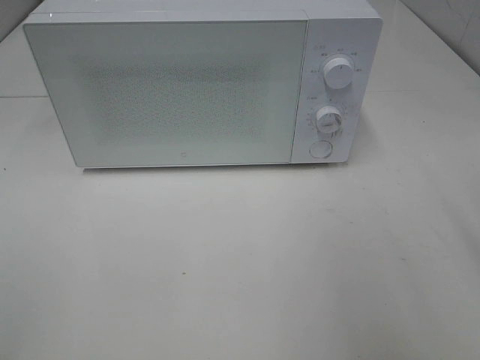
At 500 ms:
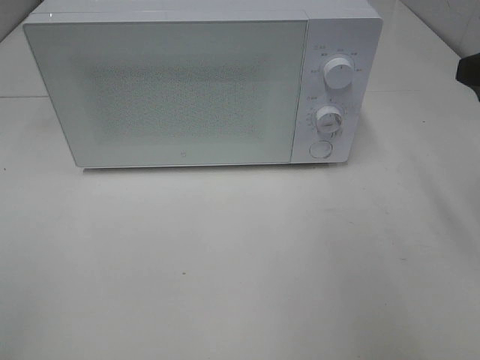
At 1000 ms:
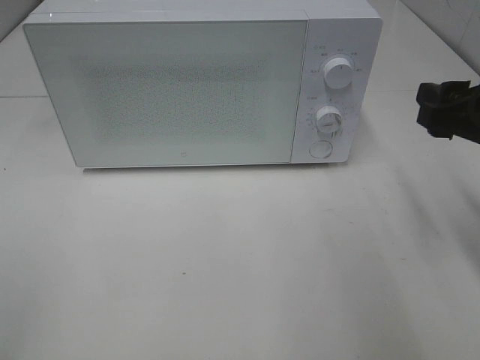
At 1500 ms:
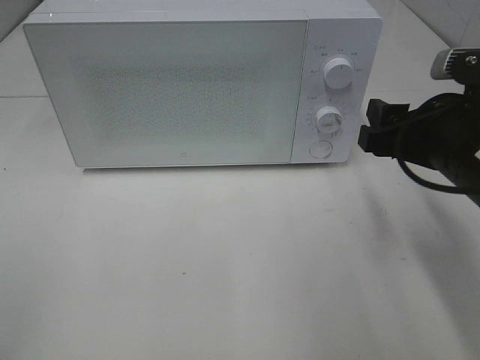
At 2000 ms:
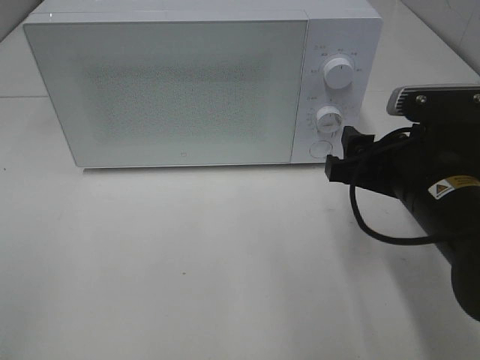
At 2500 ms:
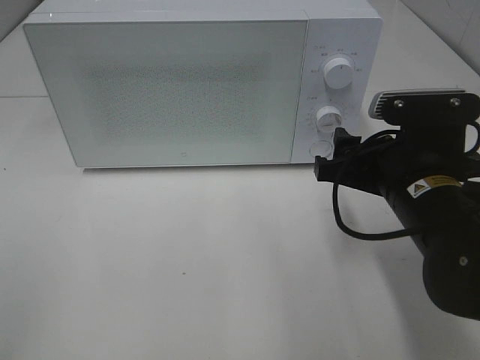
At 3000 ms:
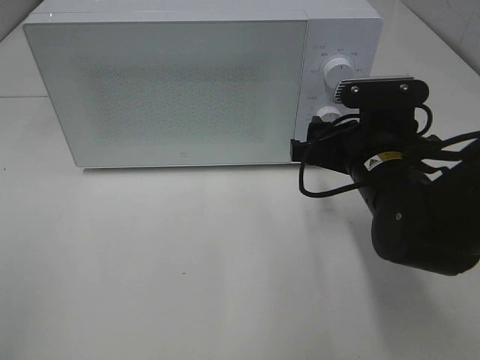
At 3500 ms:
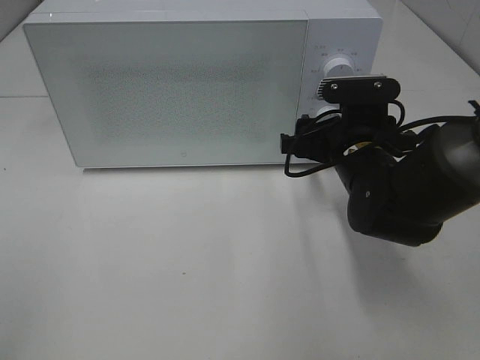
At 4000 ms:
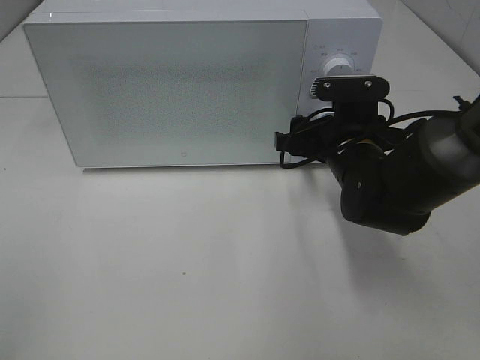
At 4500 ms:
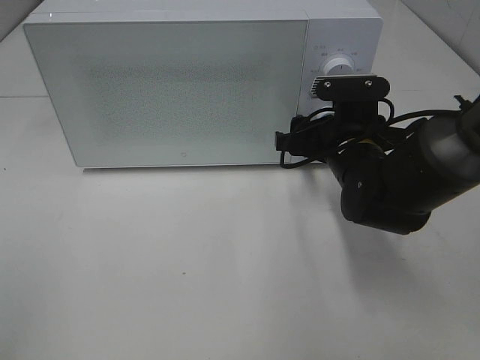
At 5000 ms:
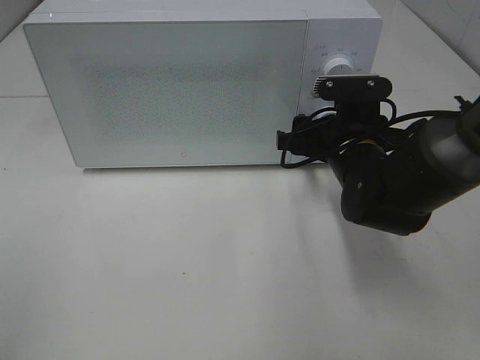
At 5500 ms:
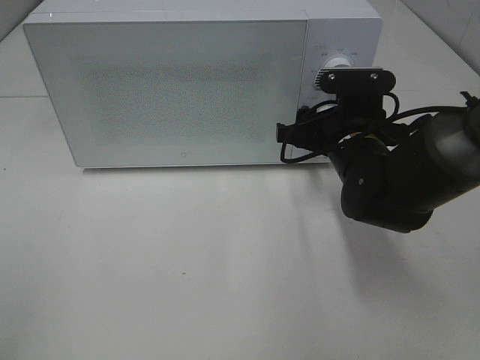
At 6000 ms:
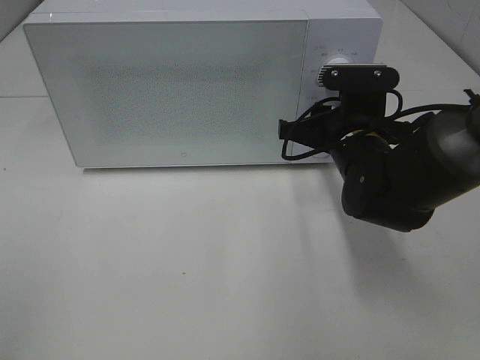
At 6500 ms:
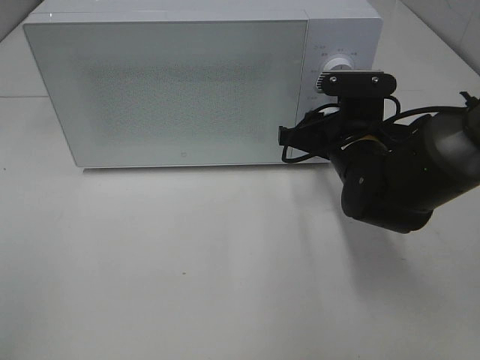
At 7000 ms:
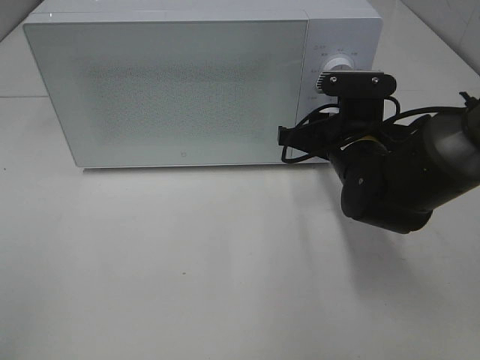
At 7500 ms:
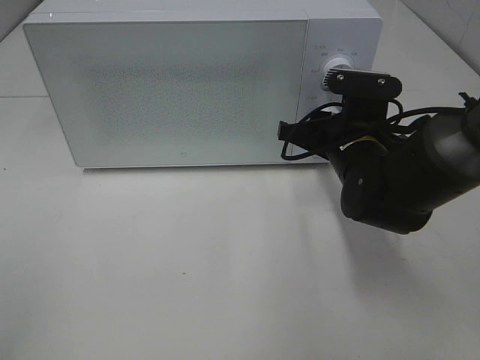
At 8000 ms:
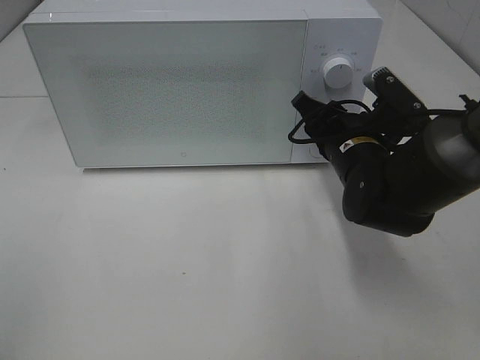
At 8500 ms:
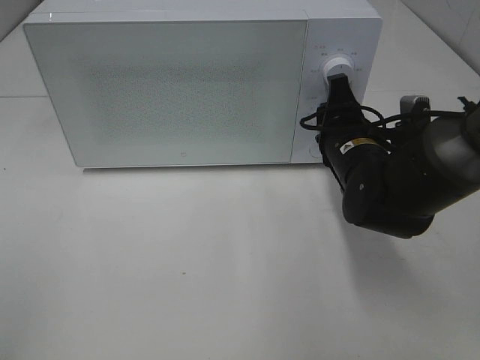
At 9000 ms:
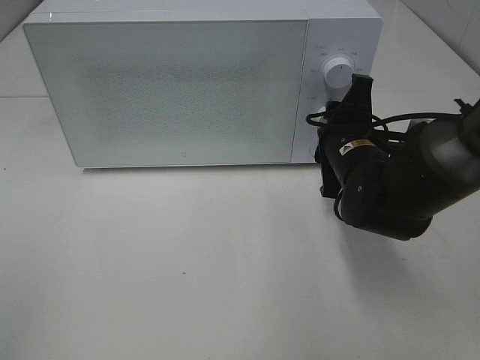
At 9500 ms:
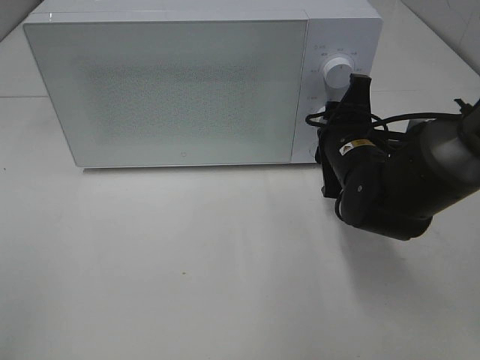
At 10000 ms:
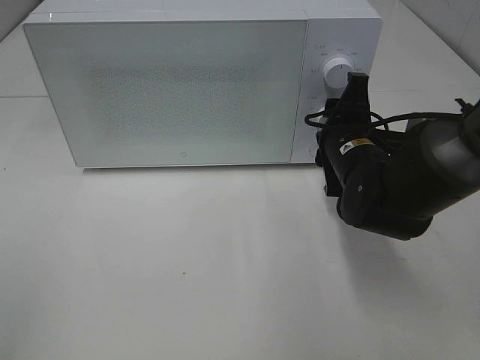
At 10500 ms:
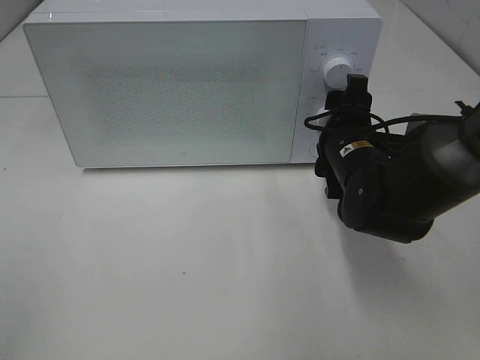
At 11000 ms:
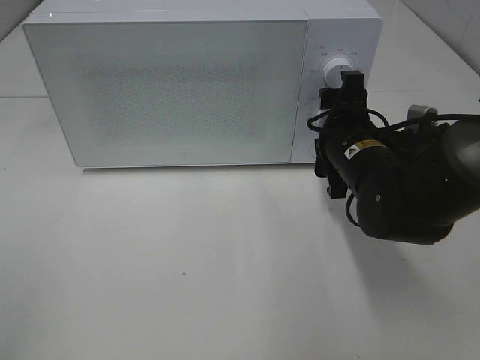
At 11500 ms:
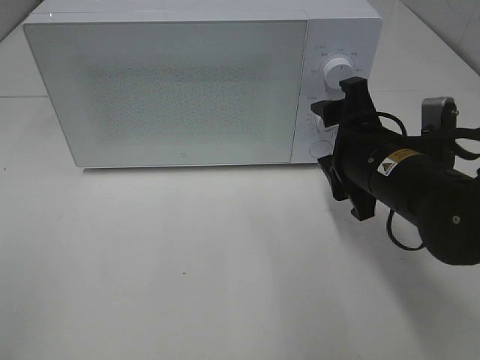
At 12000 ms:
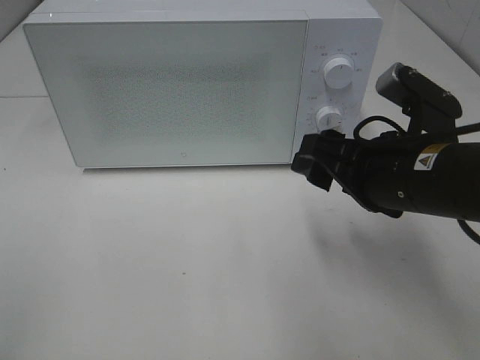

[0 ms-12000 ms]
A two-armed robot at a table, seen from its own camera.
Task of the whole recording: Heat Sandwich.
Step, 0 ms to 11000 ms: Right hand: twist timer button.
0 ms to 2000 ms: The right gripper heads downward and to the left, covering about 15 cm.
2000 ms to 4000 ms: The right gripper goes some 15 cm forward and downward.
4000 ms to 6000 ms: The right gripper closes.
10000 ms to 12000 ms: The right gripper moves backward and upward, some 10 cm.

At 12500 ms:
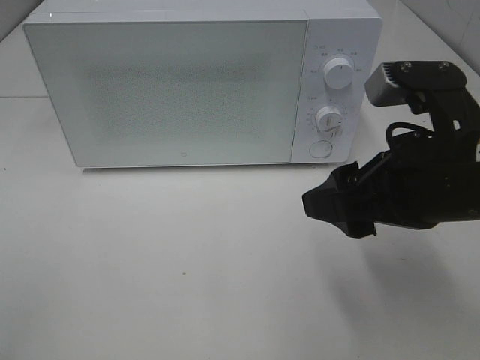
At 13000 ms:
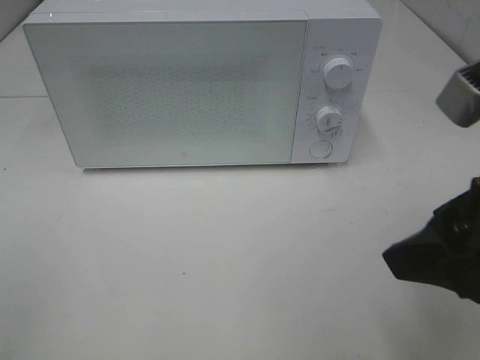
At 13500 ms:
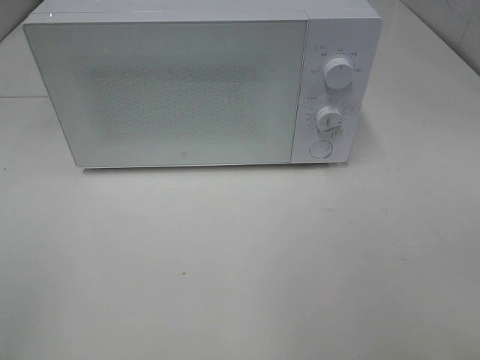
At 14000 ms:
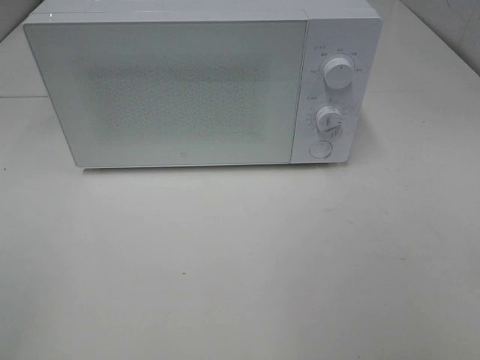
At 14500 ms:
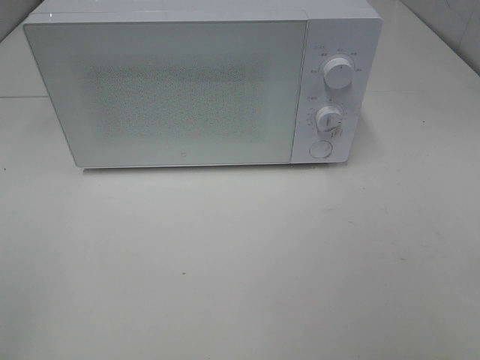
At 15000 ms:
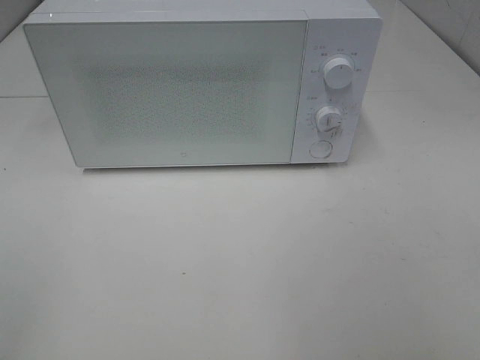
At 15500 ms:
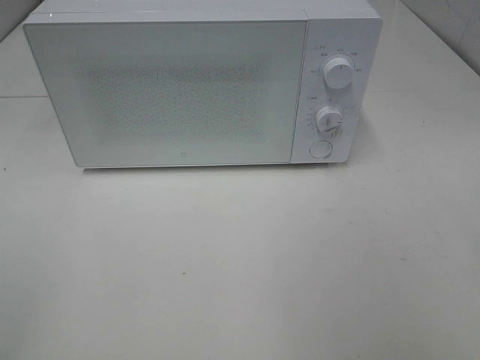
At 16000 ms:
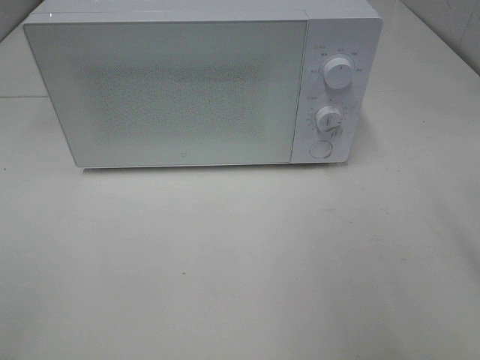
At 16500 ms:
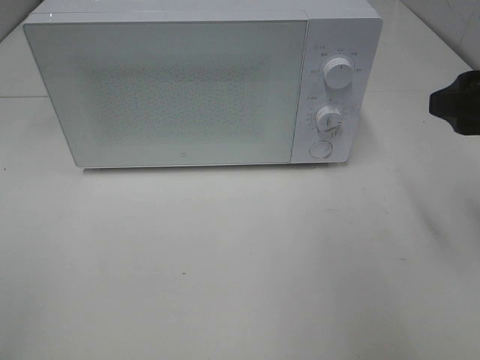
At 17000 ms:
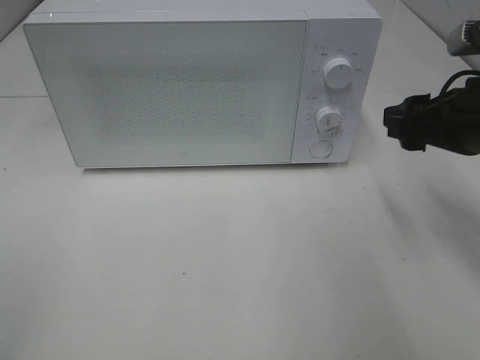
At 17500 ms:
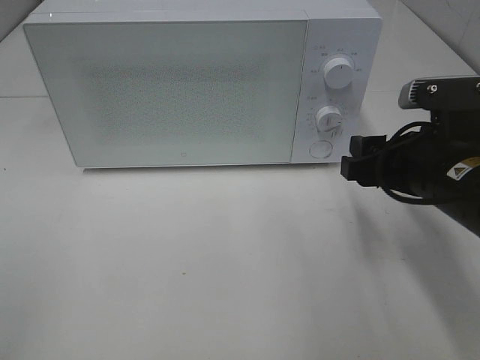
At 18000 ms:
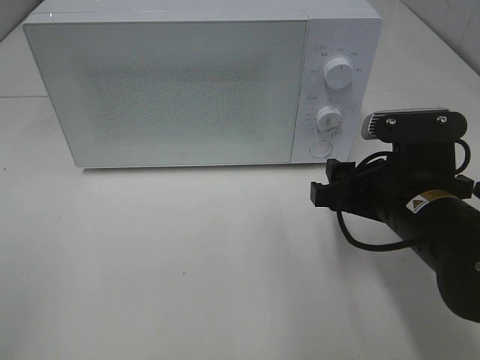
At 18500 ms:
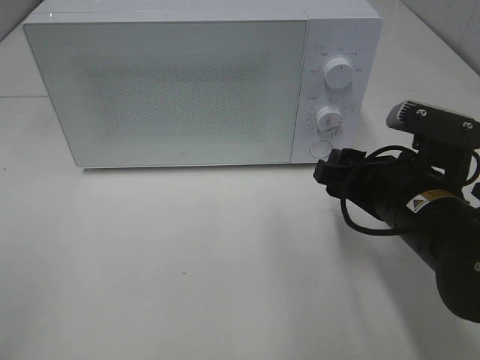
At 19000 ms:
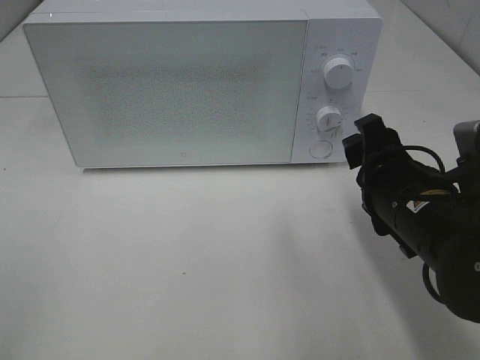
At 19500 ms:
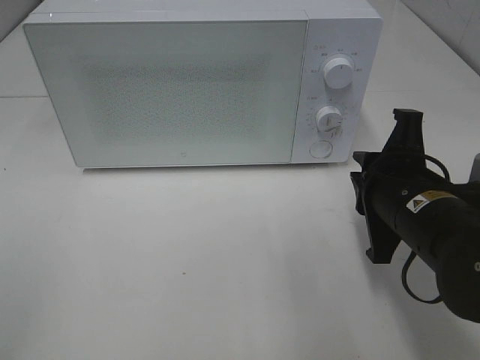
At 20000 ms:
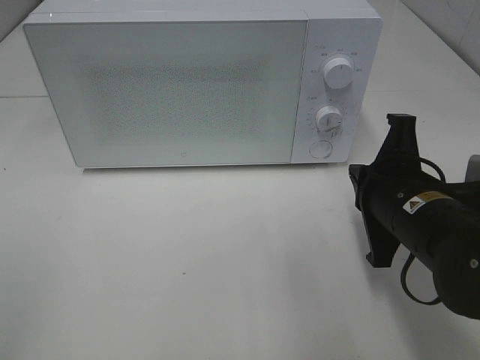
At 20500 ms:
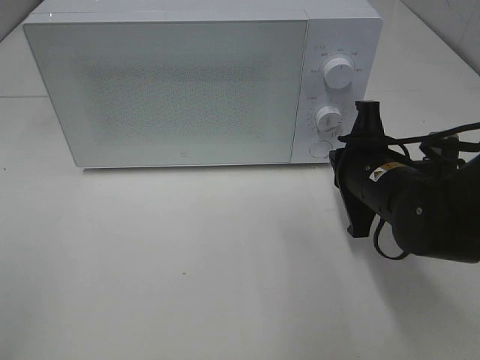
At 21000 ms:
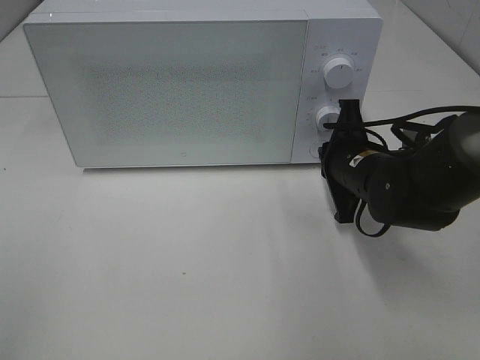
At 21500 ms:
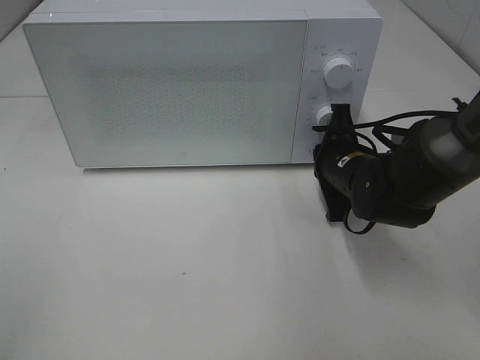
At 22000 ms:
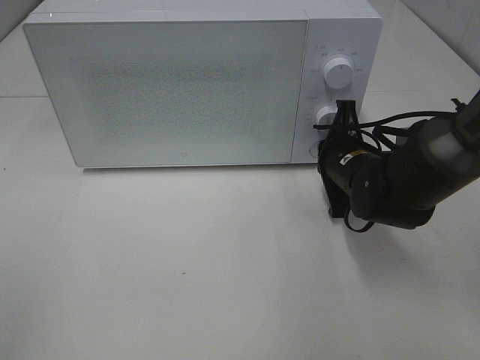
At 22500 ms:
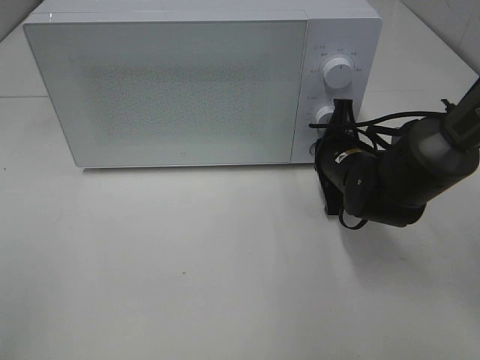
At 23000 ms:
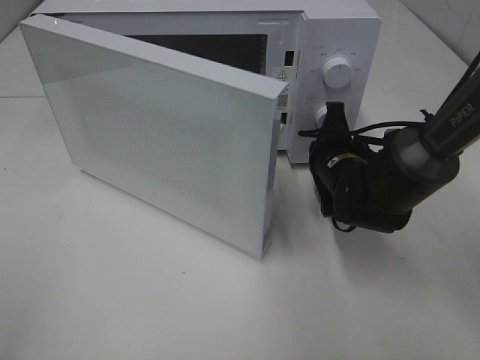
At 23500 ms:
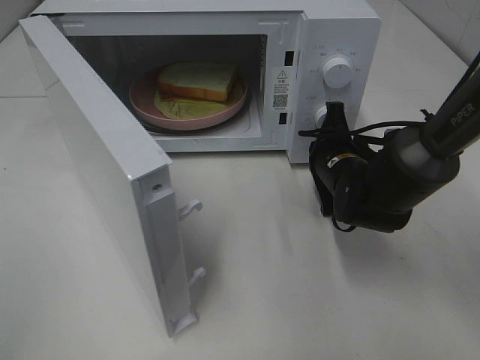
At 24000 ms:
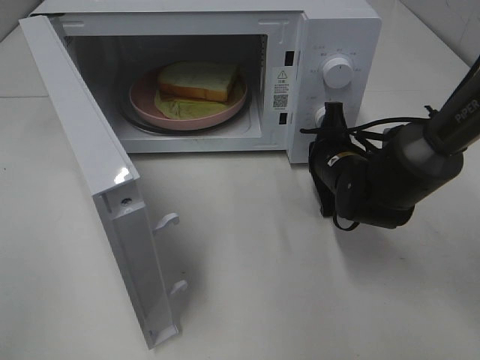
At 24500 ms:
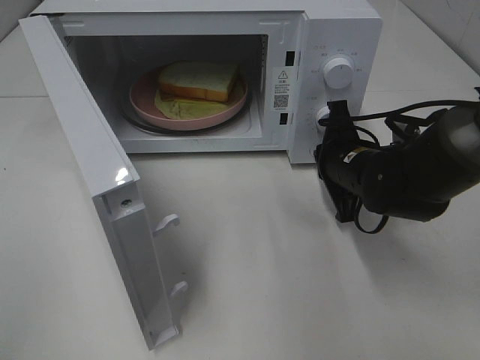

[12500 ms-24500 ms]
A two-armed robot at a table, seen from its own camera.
Task of the whole recording: Heat Sandwich.
Step, 12500 ms to 24000 ms: Right hand: press the switch.
12500 ms to 14500 ms: The right gripper is displaced backward and to the right by approximately 20 cm.
14500 ms to 16500 ms: The right gripper shifts about 20 cm forward.
16500 ms to 18500 ms: The right gripper moves downward and to the left, roughly 15 cm.
18500 ms to 20500 ms: The right gripper goes approximately 5 cm forward, and closes its fingers.
20500 ms to 22500 ms: The right gripper goes some 5 cm forward.

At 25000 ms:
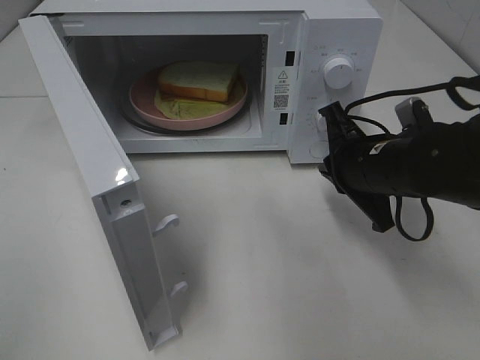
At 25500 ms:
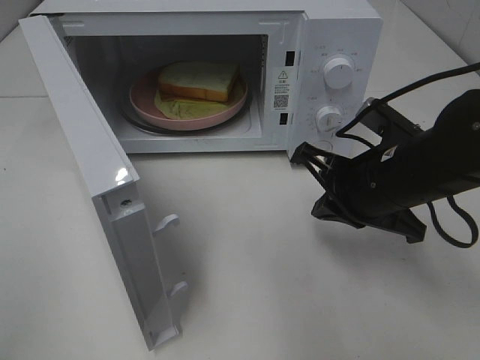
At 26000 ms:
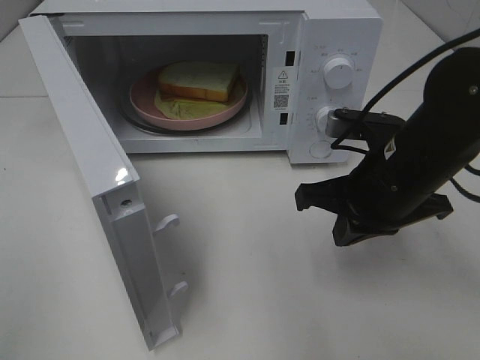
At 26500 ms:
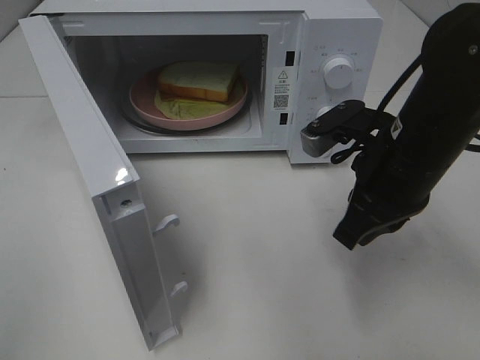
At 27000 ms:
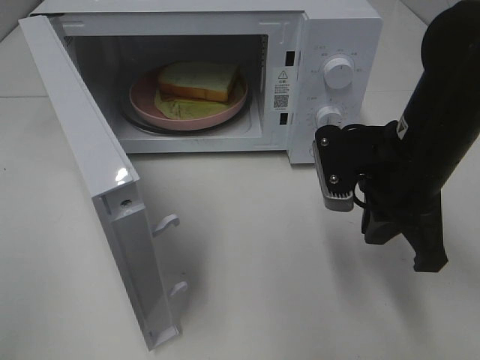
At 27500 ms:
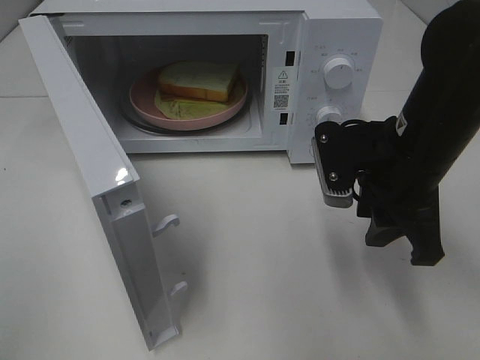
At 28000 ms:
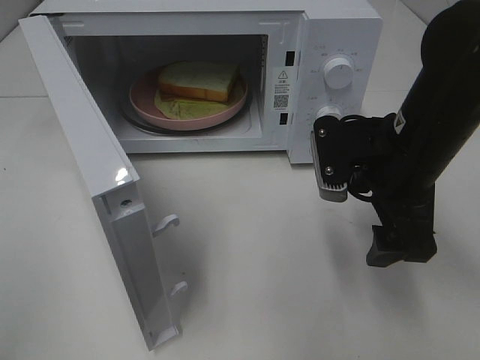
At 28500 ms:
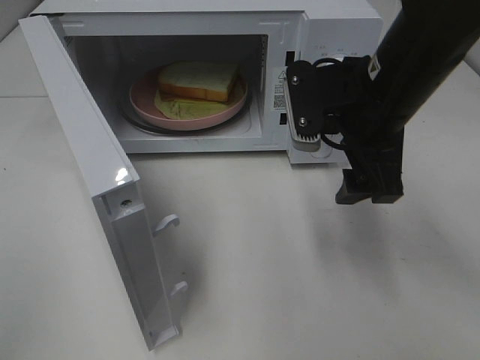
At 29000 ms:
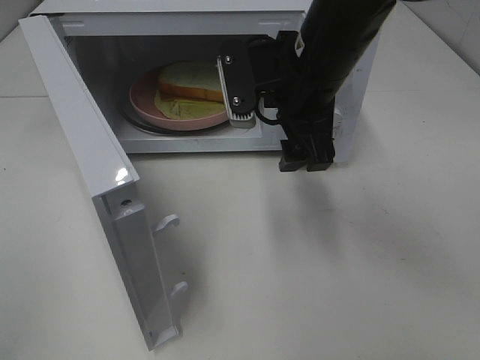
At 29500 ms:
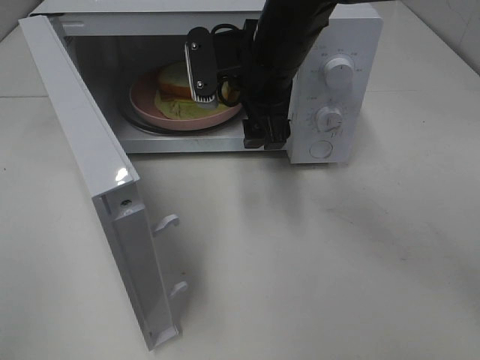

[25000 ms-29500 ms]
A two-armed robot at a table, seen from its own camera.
Task of the whole recording: Heat Sandwich.
25000 ms to 27000 ms: The right gripper shifts some 5 cm upward.
27000 ms to 29500 ms: The right gripper travels to the left and forward by some 15 cm, and opens.
